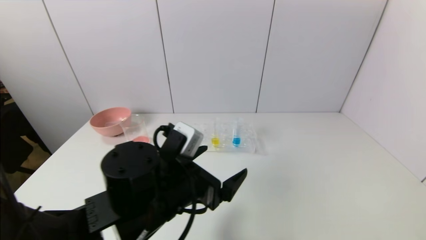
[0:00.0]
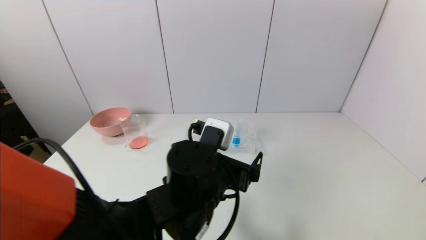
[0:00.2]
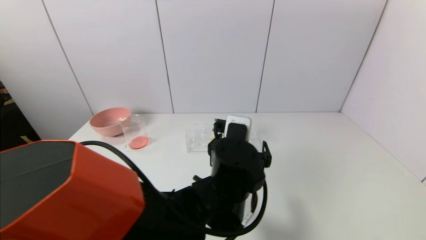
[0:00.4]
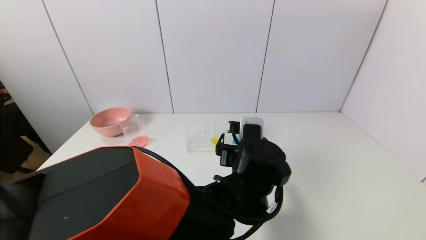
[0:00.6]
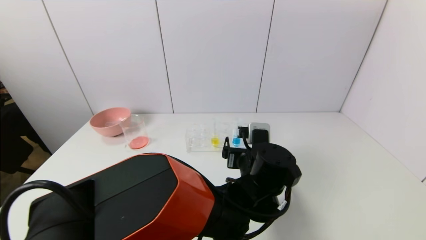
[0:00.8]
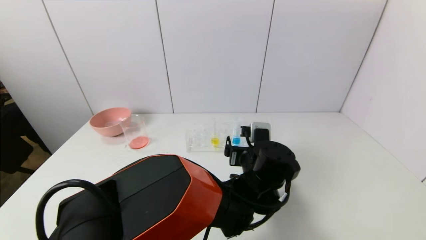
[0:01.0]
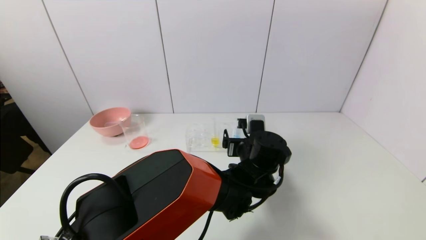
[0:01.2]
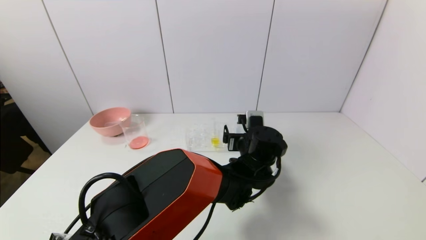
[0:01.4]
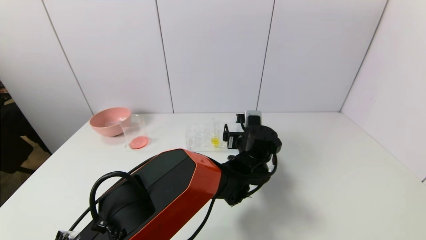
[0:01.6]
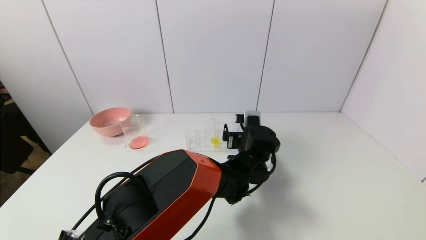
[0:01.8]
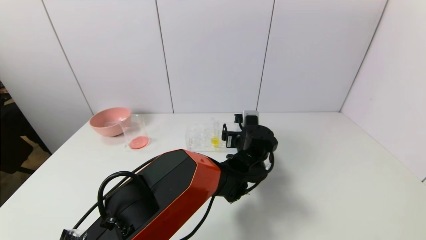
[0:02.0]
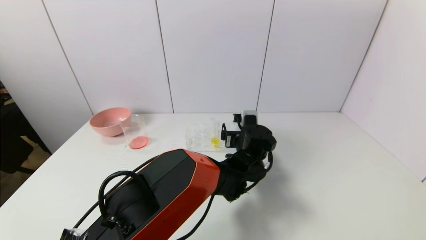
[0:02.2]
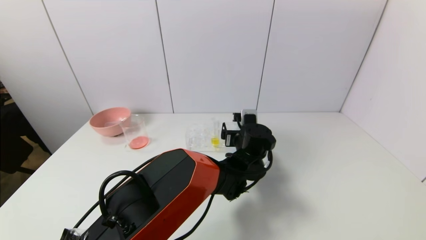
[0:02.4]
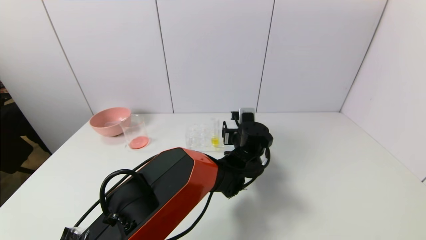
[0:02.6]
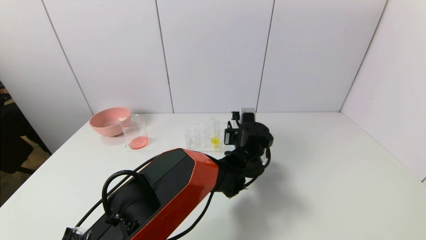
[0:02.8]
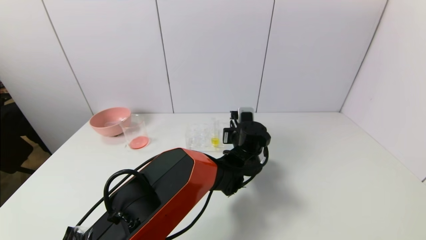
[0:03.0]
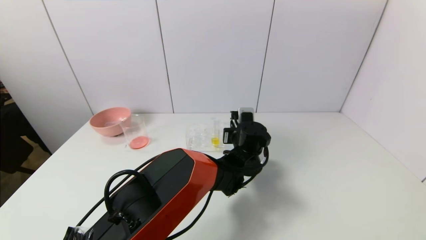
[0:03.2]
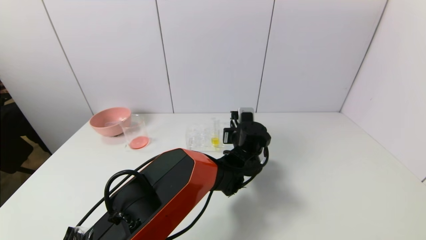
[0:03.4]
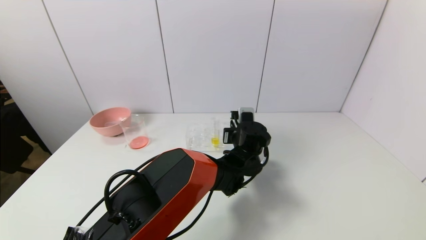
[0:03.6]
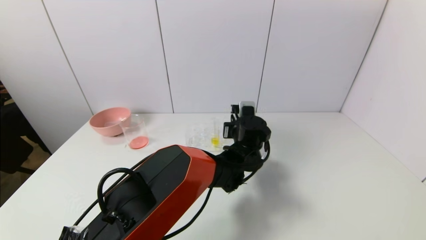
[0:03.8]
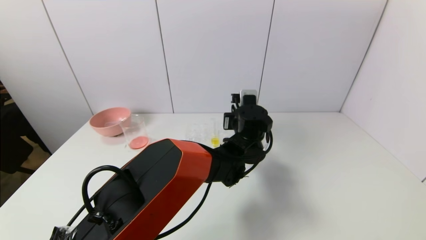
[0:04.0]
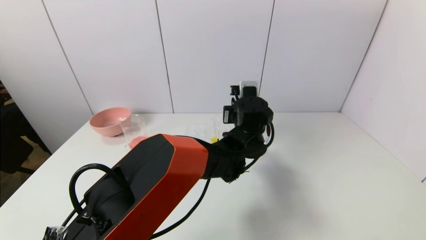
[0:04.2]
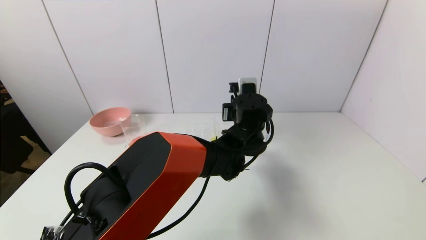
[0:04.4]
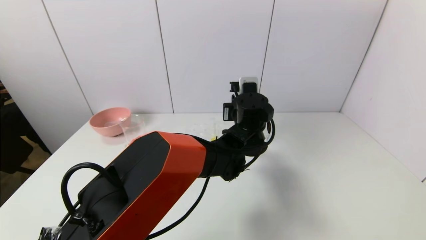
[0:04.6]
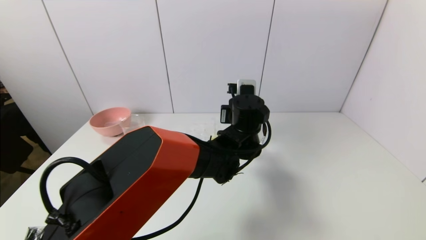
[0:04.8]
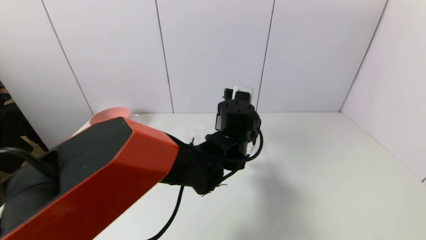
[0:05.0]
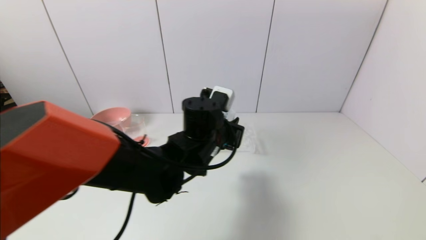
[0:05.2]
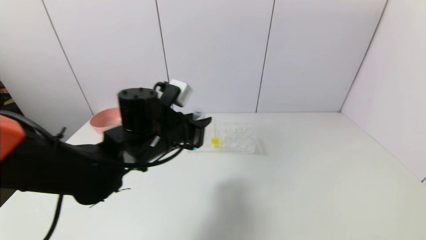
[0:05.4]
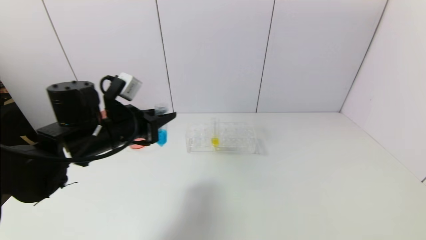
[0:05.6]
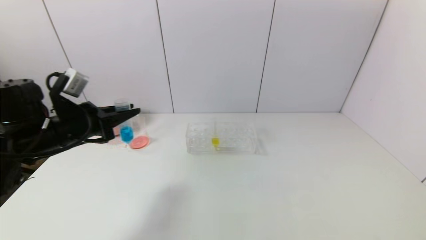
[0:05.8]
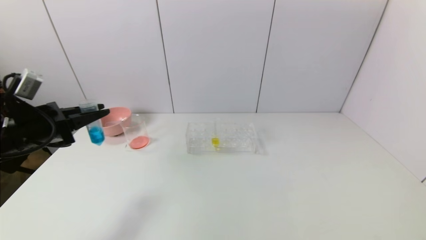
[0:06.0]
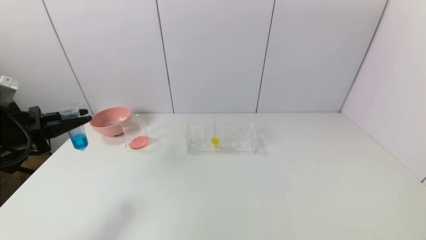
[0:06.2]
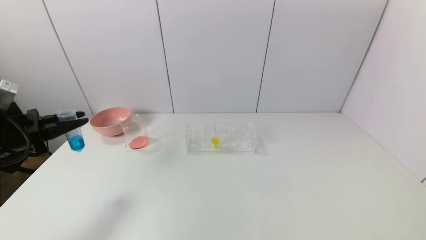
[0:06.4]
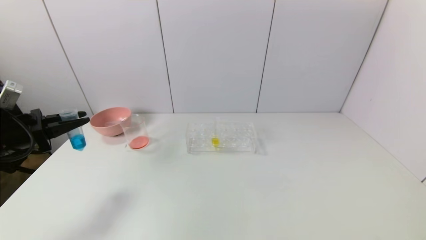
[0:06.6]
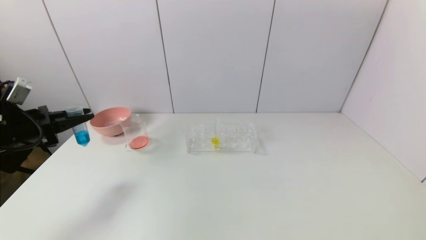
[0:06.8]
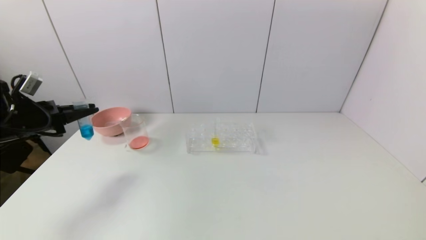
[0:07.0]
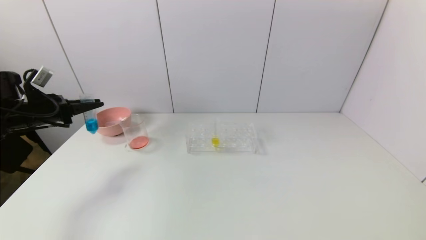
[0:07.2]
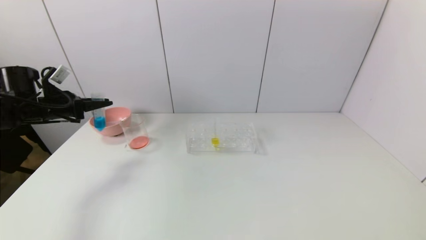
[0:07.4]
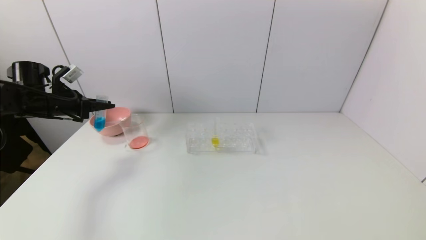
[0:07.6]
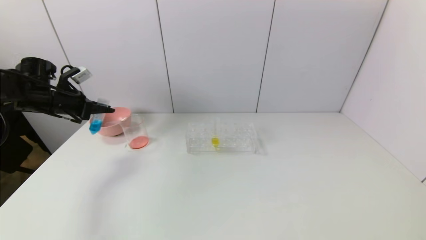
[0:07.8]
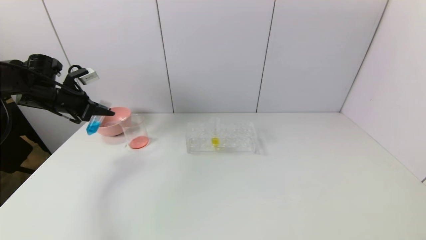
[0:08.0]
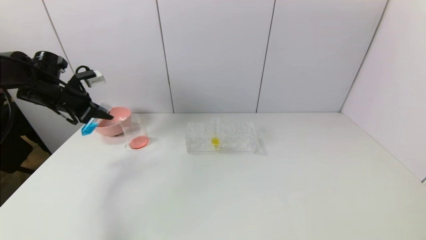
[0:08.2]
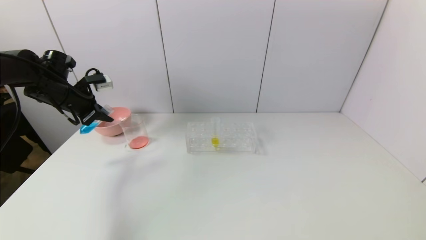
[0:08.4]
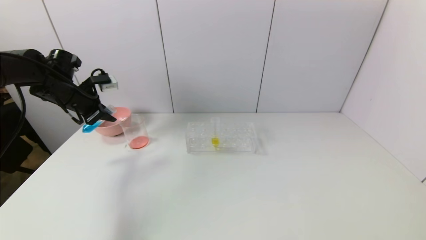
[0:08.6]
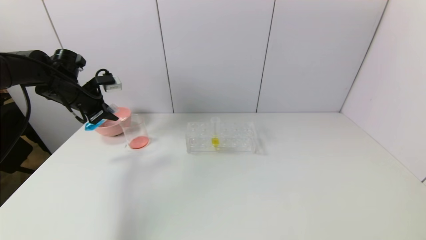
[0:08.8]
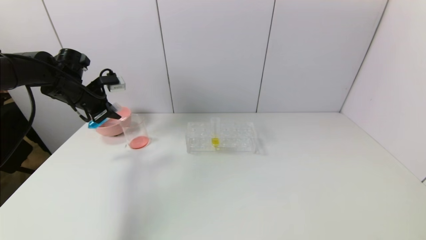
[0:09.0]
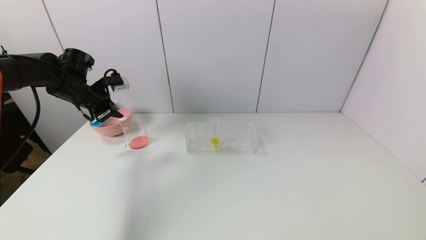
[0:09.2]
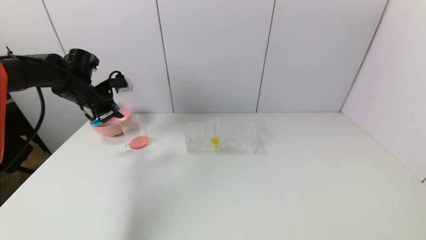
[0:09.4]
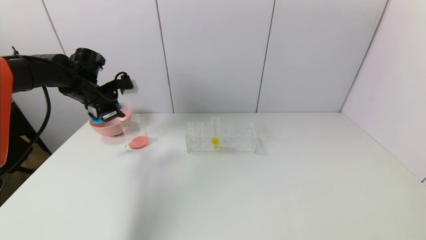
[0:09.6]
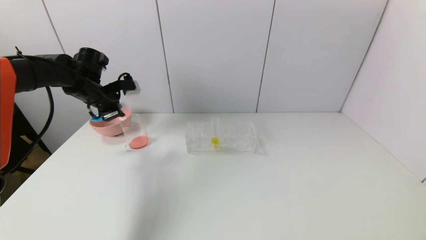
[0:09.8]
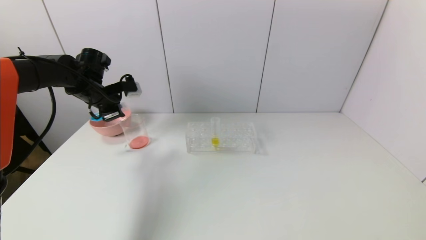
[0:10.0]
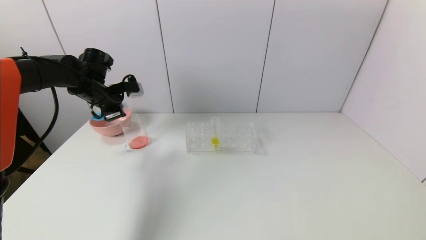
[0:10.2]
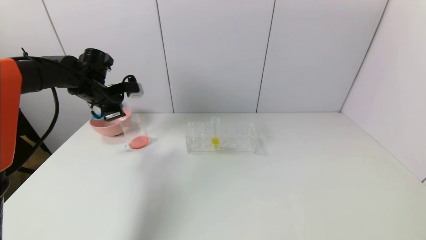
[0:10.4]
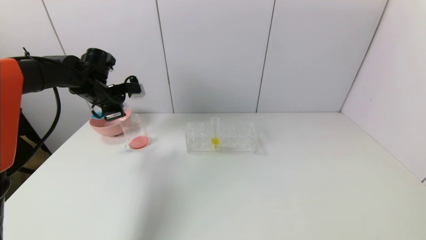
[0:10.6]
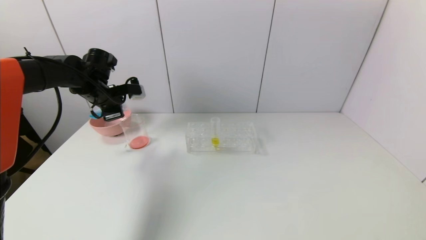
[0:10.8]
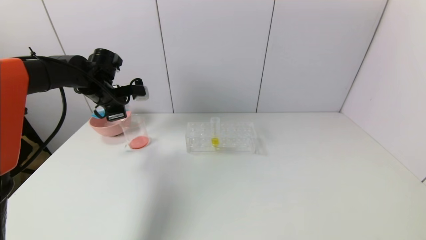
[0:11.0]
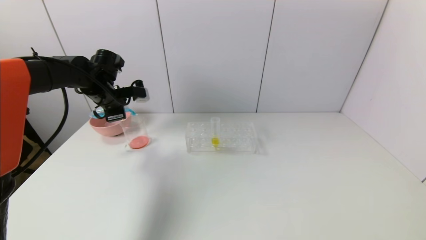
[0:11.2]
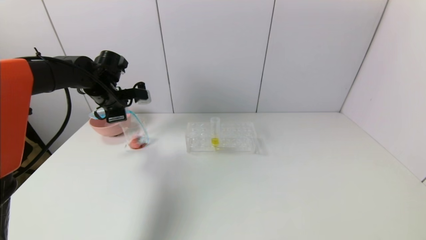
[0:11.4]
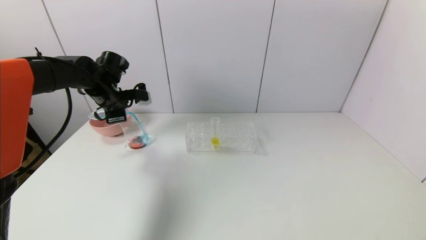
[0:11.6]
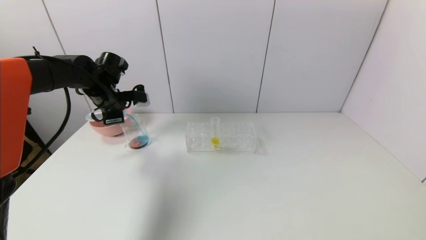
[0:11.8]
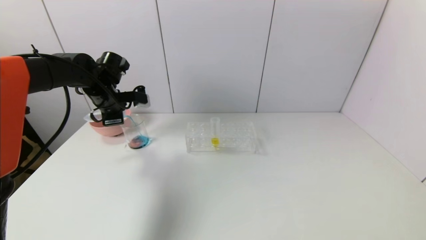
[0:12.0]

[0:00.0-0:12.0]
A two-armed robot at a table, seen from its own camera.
Task of the whole recording: pick up the test tube with red pigment and the test tube with blue pigment by grippers and pour them into the container.
Step, 0:00.0 to 0:03.0: Grasp the blue reagent with the left gripper.
0:00.0 to 0:01.6: The left gripper goes about 25 cm to the right and forward.
0:01.6 to 0:03.0: The left gripper closes up.
0:03.0 to 0:04.4: The left gripper moves upward, roughly 10 cm.
0:04.4 to 0:06.0: The left gripper travels to the left by approximately 40 cm.
0:06.0 to 0:07.6: The left gripper is displaced forward by roughly 15 cm.
0:07.6 to 0:09.0: The left gripper goes about 5 cm to the right.
0:09.0 to 0:10.4: The grippers stay close to where they were, moving slightly.
0:10.4 to 0:12.0: The grippers make only small movements.

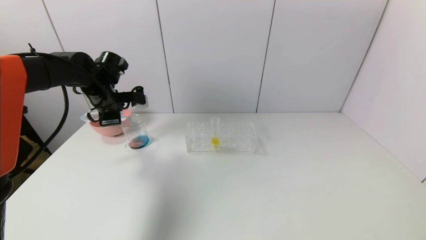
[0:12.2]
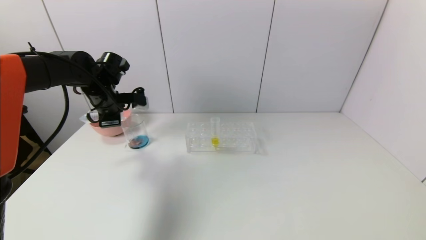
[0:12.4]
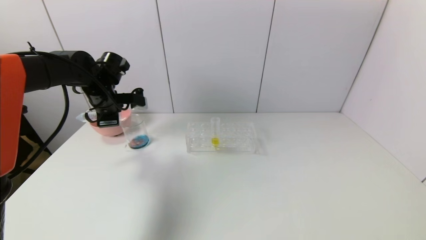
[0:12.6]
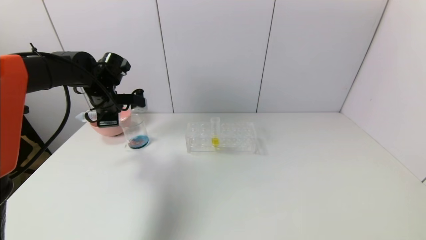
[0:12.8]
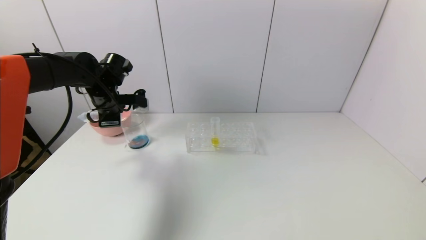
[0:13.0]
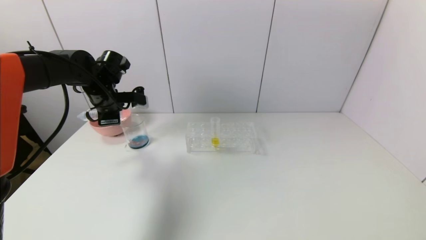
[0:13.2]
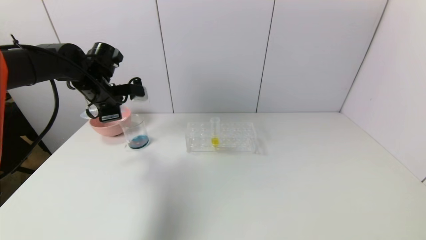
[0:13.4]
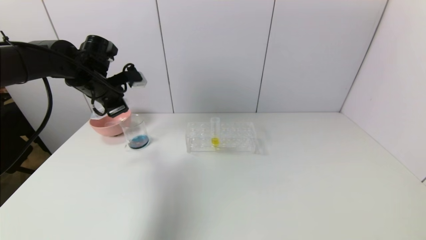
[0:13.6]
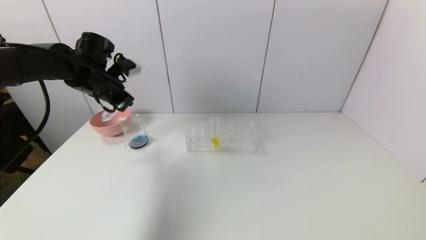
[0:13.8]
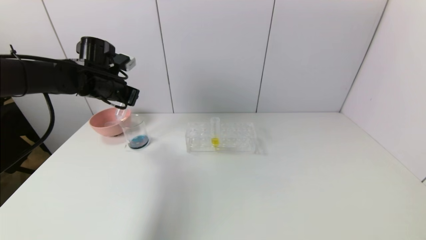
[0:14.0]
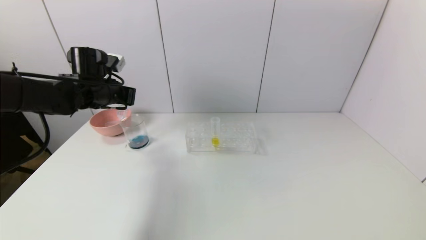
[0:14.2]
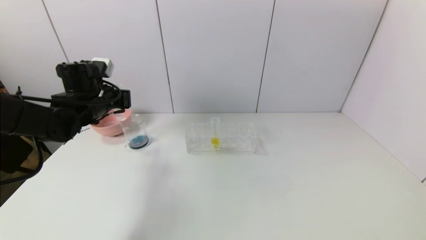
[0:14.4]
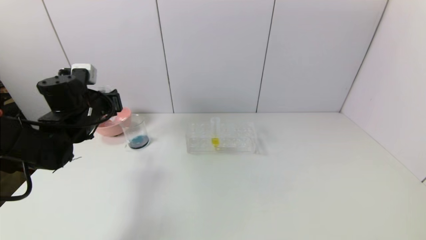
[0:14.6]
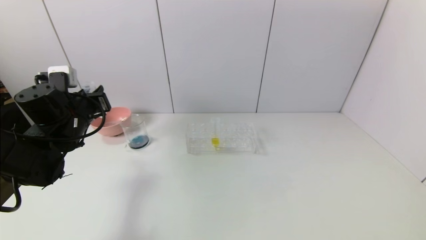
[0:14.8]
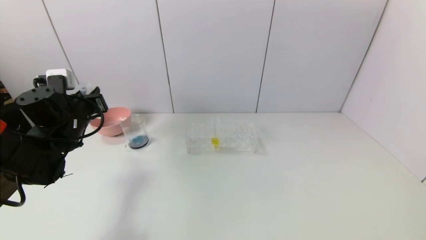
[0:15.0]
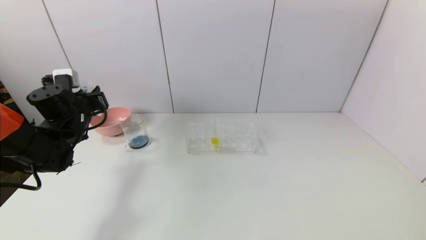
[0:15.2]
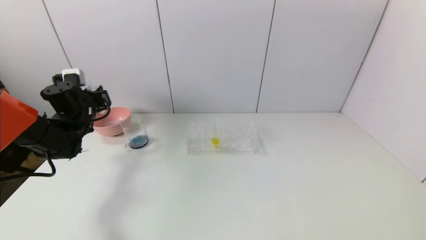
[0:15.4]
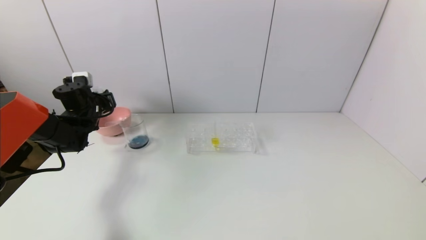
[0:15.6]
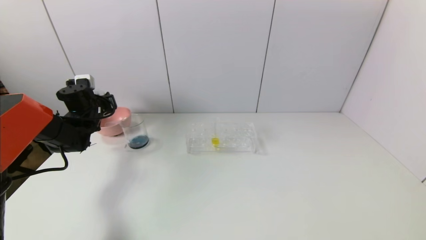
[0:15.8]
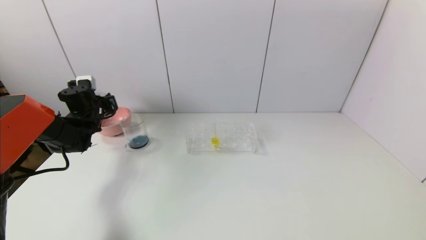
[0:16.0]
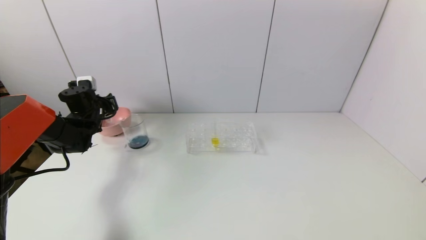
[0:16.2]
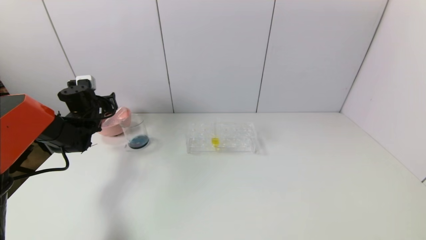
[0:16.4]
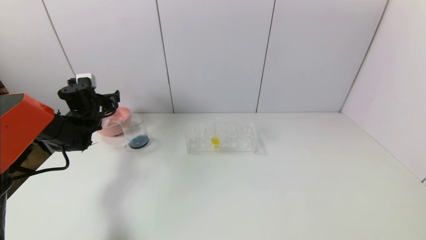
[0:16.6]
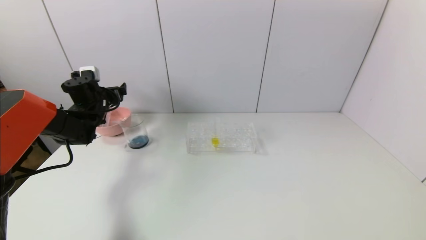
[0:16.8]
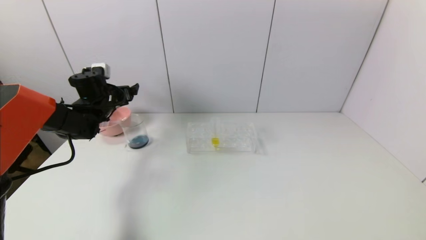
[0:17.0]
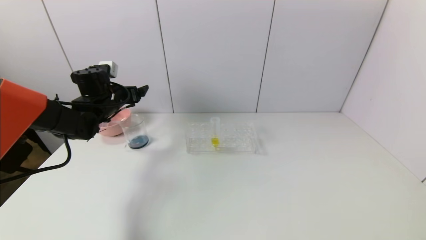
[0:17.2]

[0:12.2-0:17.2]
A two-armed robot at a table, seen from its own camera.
Task of the whole recording: pick up the test tube with red pigment and the test tube with blue pigment by grippers and pour them into the container.
Step, 0:13.6 to 0:16.4: Place the test tube into the bowl with the left gripper.
0:13.8 to 0:15.6: The left gripper heads downward and to the left, covering some 15 cm, and reaches some 5 cm backward, then returns.
0:15.6 to 0:17.2: The left gripper shifts about 5 cm to the right, and opens.
